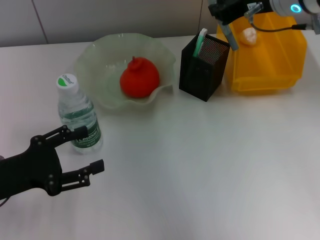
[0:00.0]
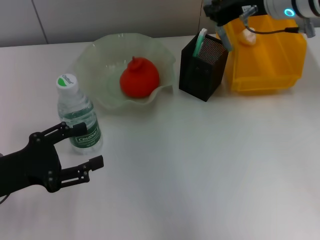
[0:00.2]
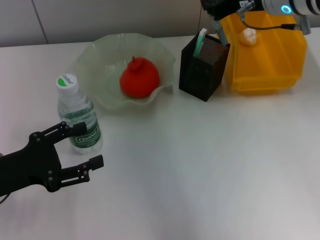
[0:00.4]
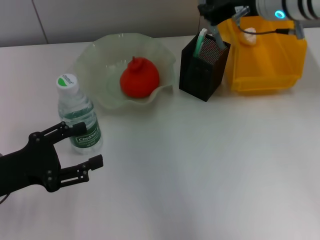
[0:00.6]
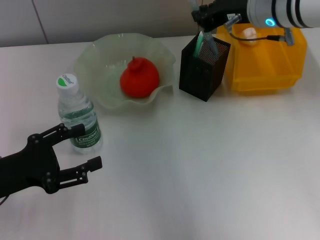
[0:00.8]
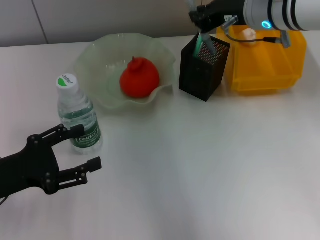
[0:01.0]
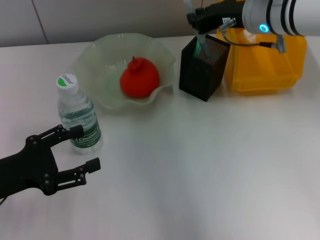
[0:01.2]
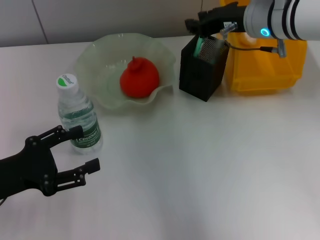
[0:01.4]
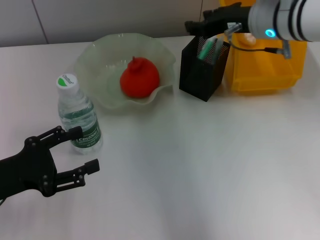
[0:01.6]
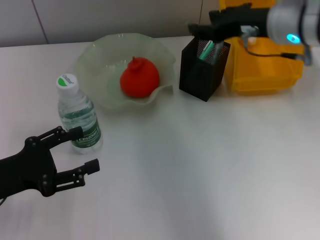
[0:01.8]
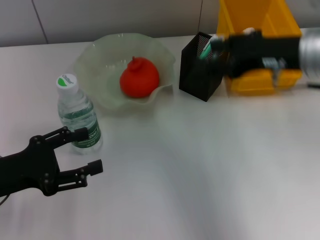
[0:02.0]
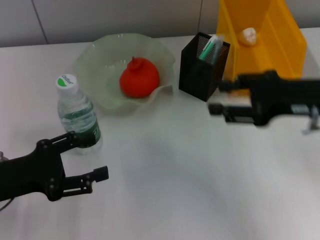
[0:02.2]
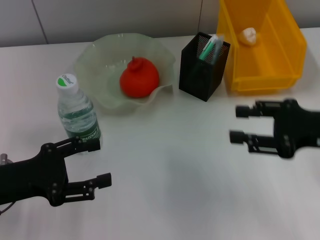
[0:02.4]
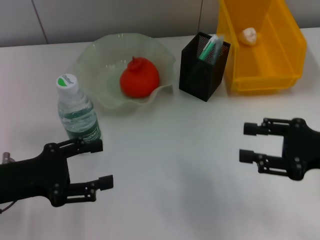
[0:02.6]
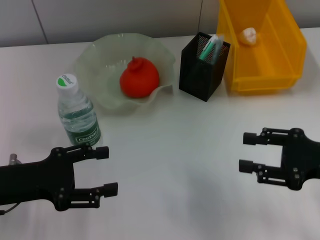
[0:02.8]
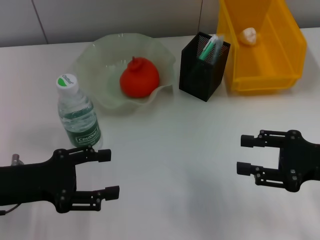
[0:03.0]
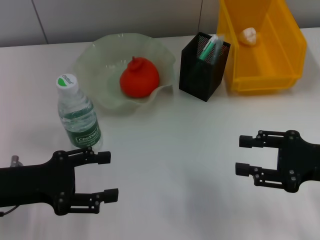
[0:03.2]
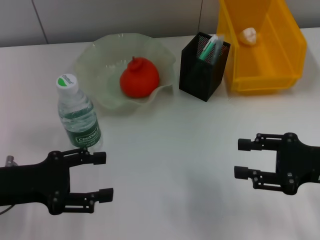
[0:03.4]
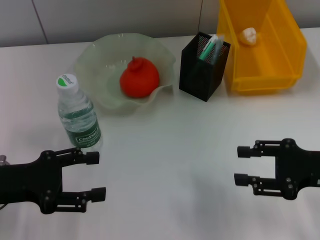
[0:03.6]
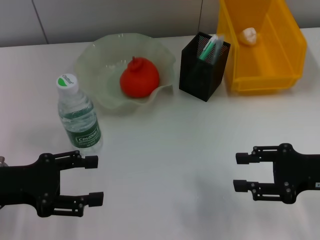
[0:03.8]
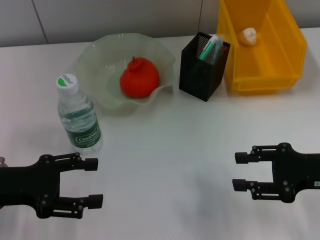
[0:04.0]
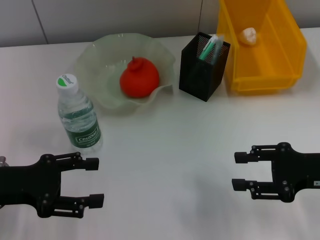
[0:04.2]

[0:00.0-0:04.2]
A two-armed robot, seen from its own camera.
Step, 0:00.0 to 0:01.6: Place the gray glue into the pen holder with the right hand.
0:00.0 to 0:01.4: The right gripper is displaced downward by about 5 cm.
0:01.4 to 0:02.8: The right gripper shifts approximately 25 cm backward, to the right and downward, and opens up.
0:02.8 to 0:04.2: The grippers make only small movements.
